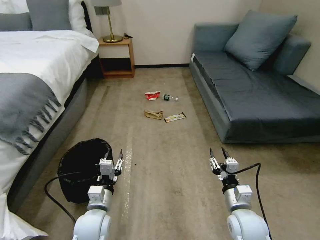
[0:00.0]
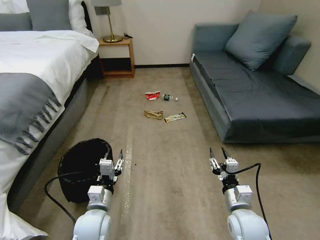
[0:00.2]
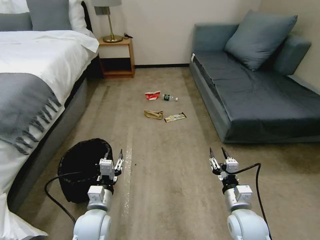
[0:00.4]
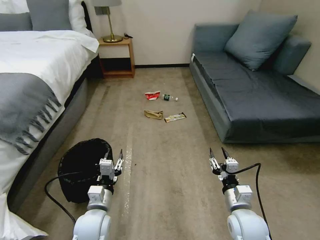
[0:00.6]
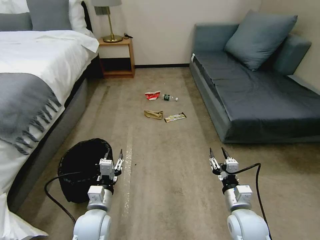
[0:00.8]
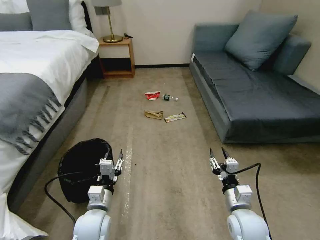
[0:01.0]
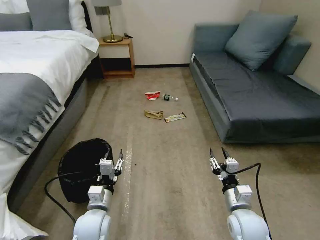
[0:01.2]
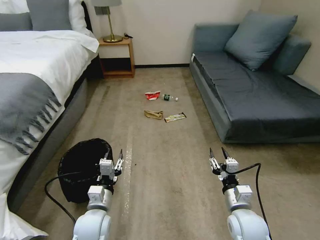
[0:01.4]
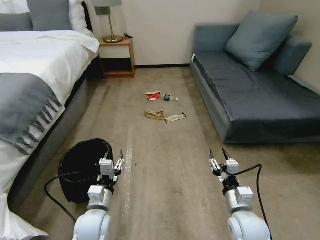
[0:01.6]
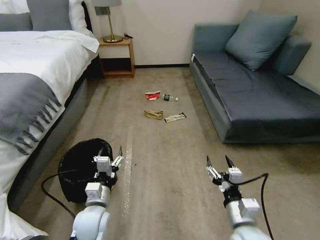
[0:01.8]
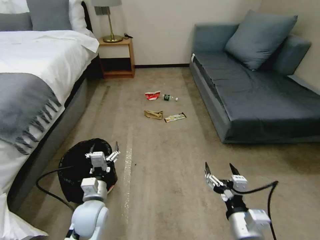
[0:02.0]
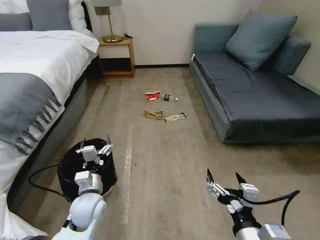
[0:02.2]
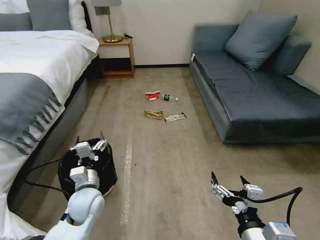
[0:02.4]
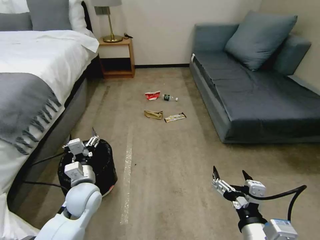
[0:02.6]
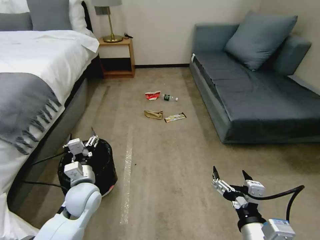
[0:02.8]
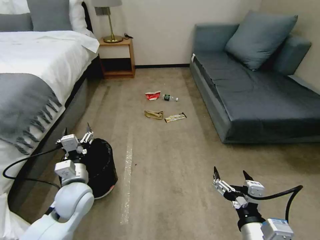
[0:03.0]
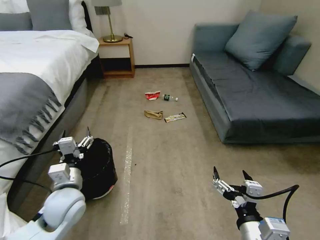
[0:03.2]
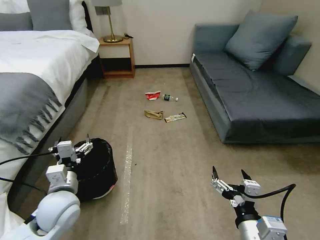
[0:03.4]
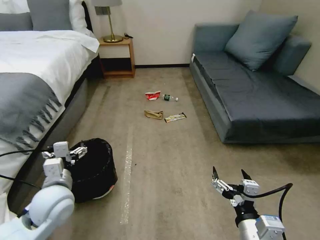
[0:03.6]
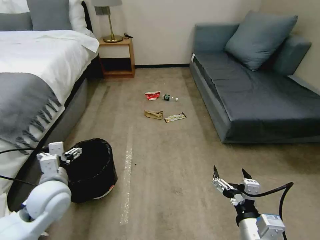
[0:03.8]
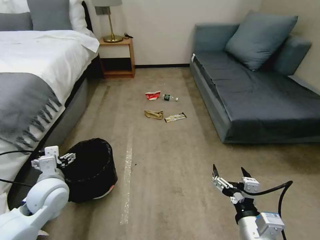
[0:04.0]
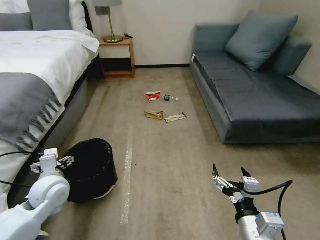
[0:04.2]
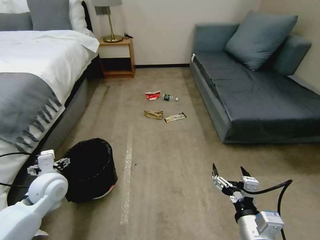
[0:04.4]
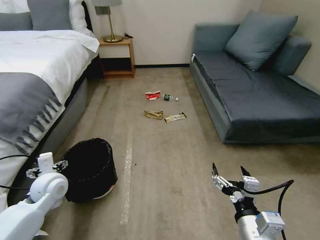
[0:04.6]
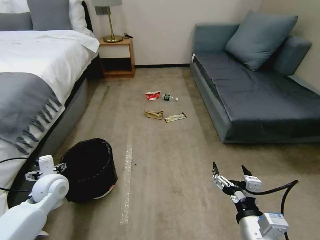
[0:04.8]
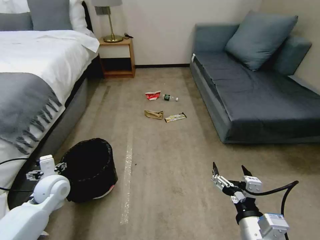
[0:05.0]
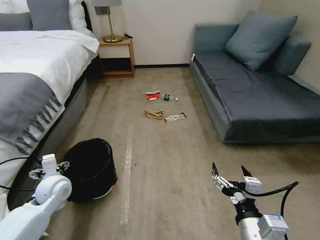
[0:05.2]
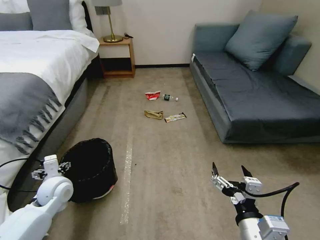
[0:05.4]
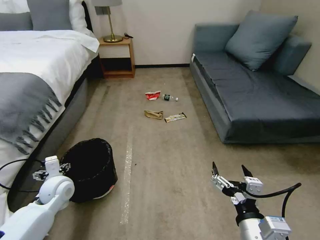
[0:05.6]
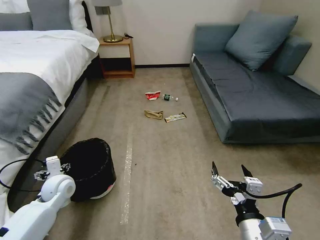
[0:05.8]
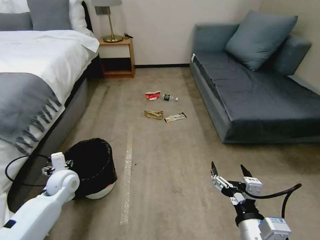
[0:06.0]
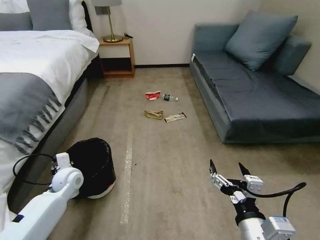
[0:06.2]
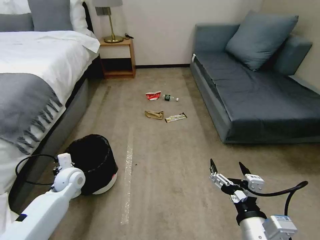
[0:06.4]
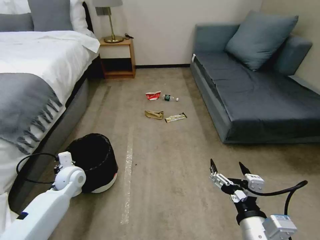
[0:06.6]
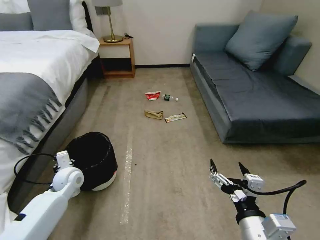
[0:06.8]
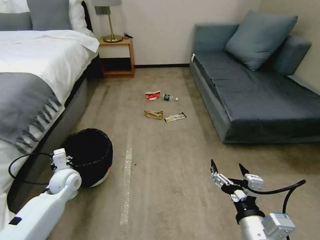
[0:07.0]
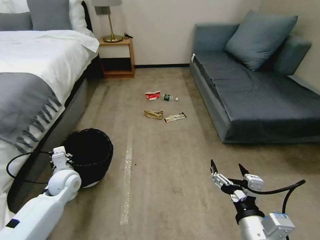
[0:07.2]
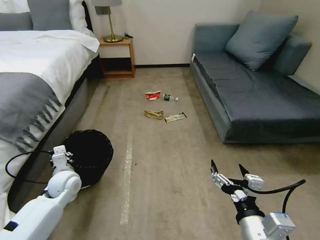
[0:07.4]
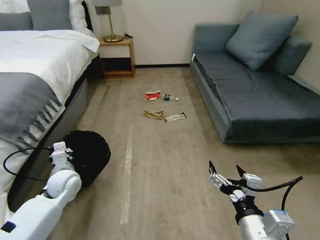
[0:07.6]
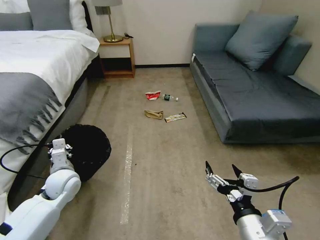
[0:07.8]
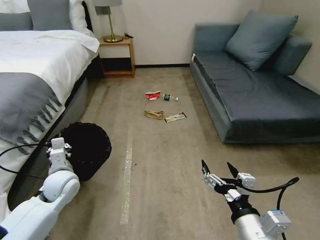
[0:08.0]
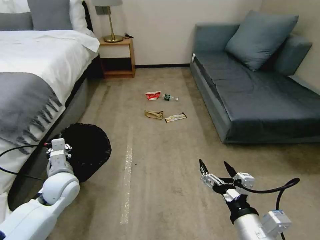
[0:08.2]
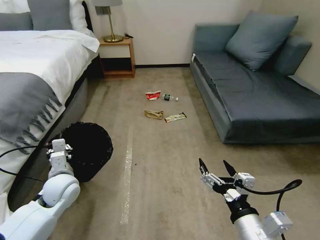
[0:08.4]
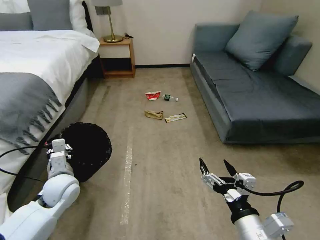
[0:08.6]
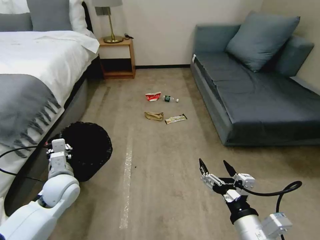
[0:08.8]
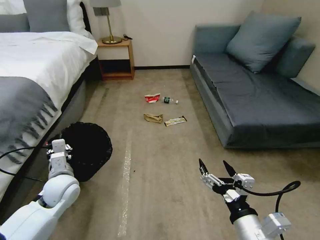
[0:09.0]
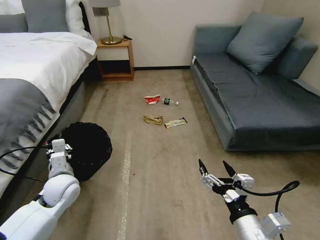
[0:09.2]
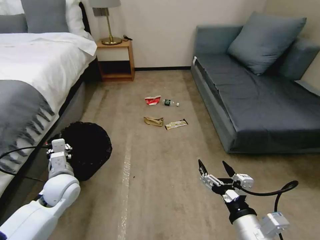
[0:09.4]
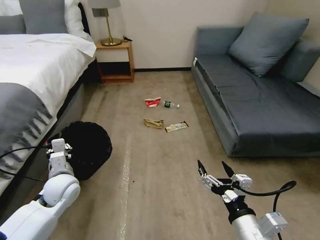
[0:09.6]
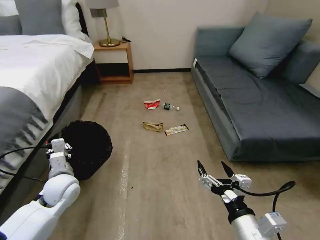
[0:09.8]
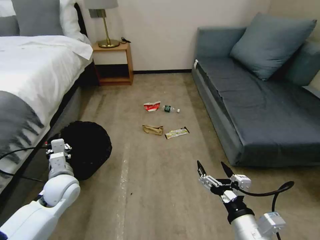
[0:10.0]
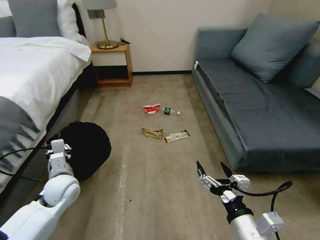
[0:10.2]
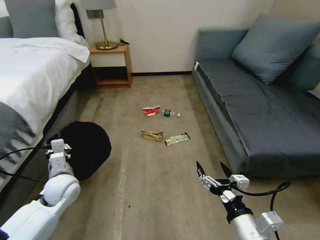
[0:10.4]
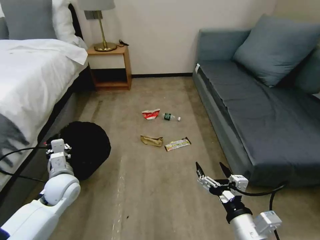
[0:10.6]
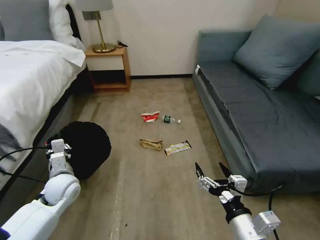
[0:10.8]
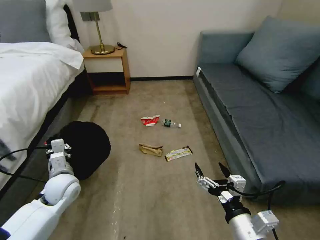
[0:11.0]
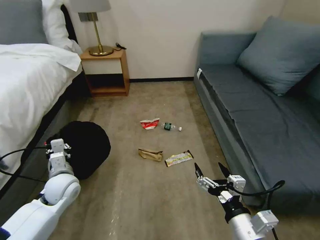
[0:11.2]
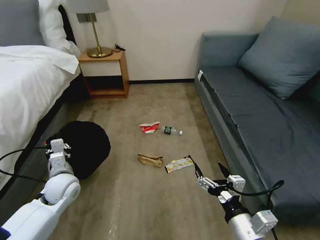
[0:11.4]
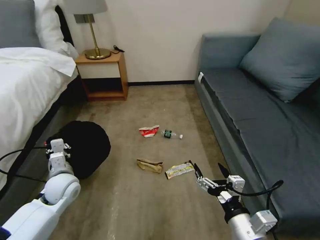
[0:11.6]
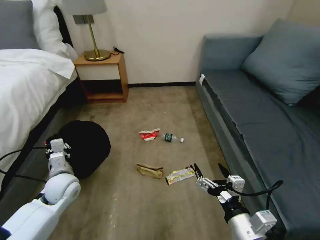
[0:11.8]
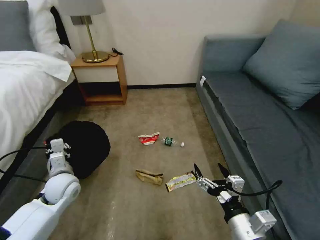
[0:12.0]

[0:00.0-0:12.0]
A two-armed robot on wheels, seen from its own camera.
Task of the whole recording: Pick up the trash bin, then pick up the garbage on the floor and place it into the trash bin.
0:01.6 to 0:03.0: The left gripper moves upward, forward and to the left, some 10 cm, while the right gripper travels backward and upward by roughly 15 cm, and opens.
0:03.0 to 0:04.4: The left gripper goes some 10 cm to the left.
0:04.4 to 0:06.0: The left gripper moves downward, about 5 cm.
0:06.0 to 0:07.6: The left gripper closes.
0:07.6 to 0:09.0: The grippers stay close to where they were, moving slightly.

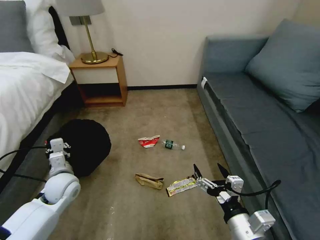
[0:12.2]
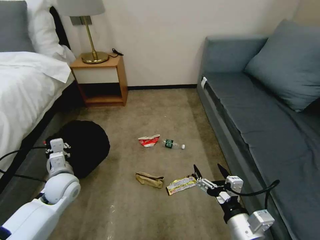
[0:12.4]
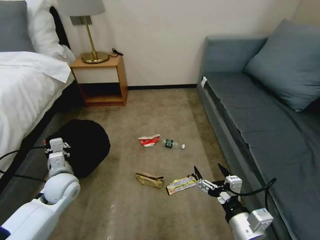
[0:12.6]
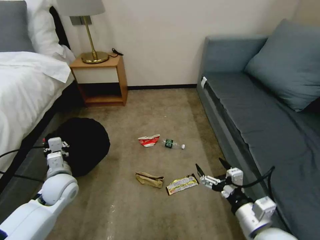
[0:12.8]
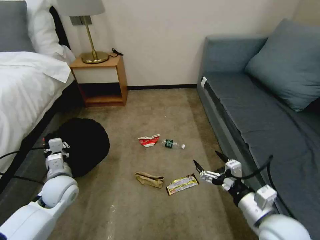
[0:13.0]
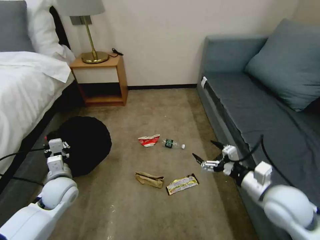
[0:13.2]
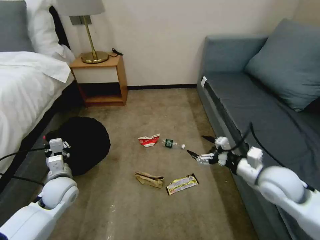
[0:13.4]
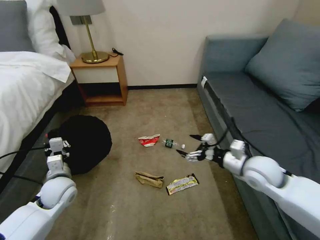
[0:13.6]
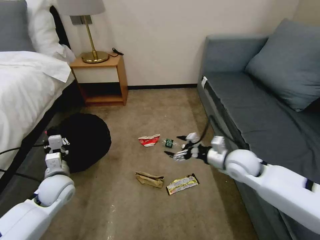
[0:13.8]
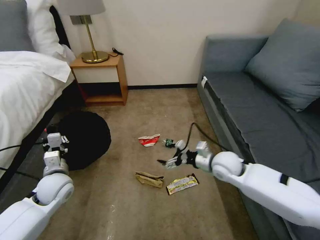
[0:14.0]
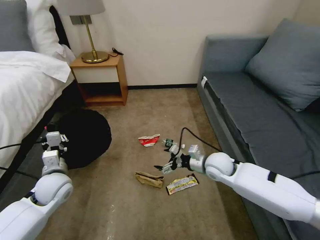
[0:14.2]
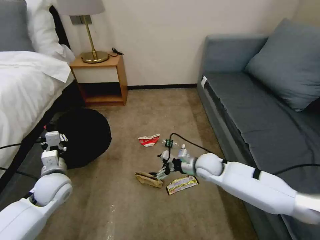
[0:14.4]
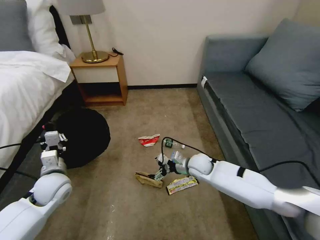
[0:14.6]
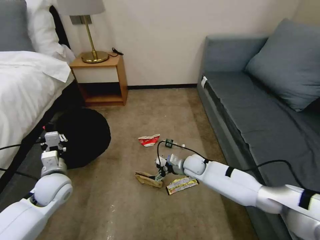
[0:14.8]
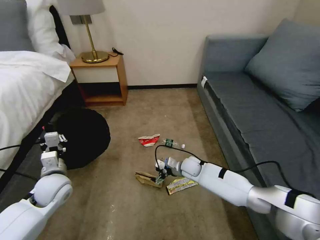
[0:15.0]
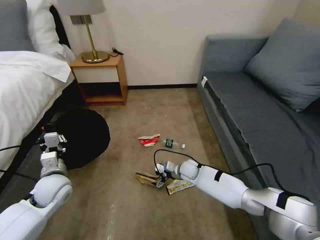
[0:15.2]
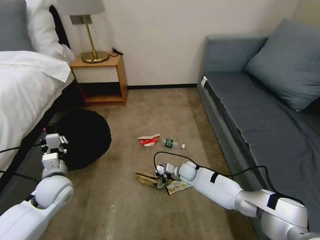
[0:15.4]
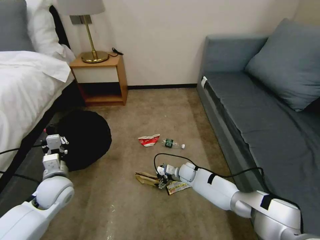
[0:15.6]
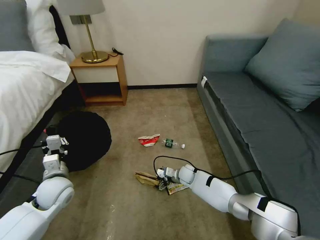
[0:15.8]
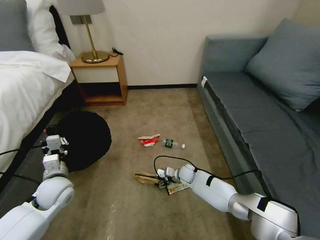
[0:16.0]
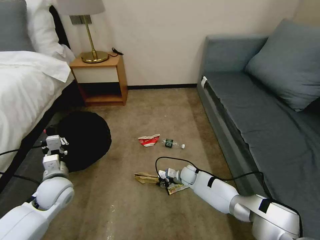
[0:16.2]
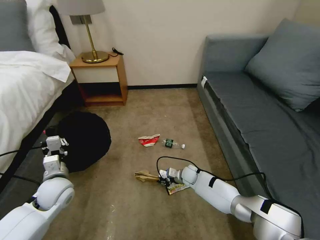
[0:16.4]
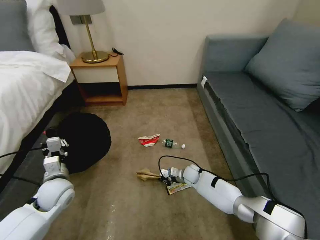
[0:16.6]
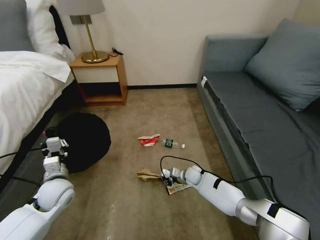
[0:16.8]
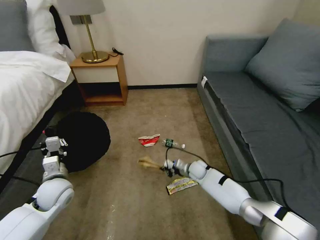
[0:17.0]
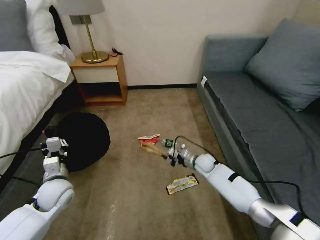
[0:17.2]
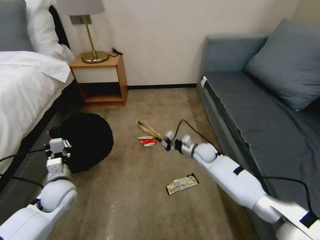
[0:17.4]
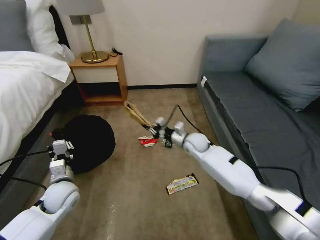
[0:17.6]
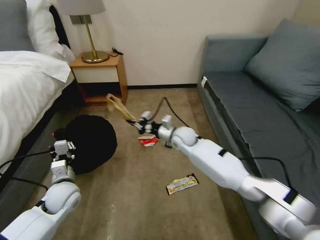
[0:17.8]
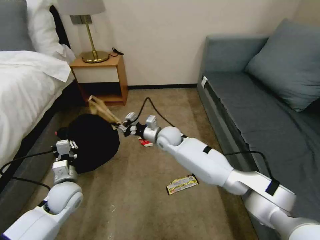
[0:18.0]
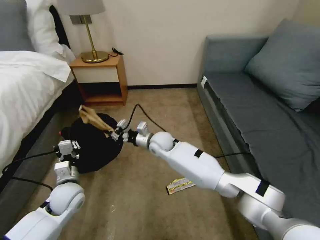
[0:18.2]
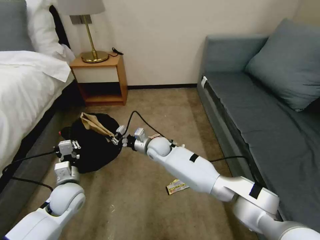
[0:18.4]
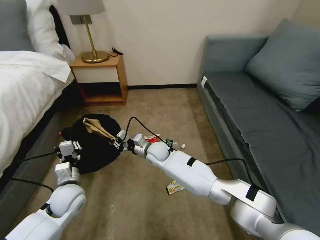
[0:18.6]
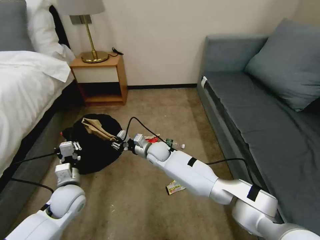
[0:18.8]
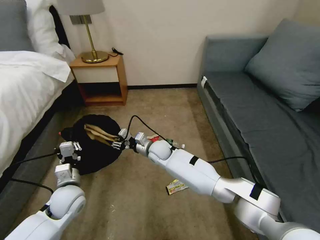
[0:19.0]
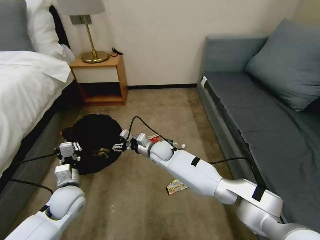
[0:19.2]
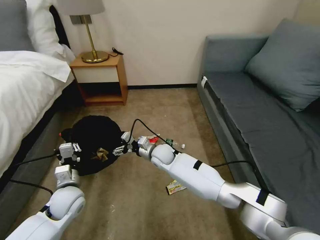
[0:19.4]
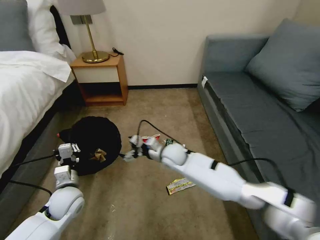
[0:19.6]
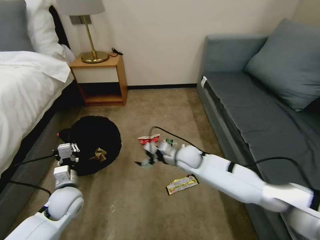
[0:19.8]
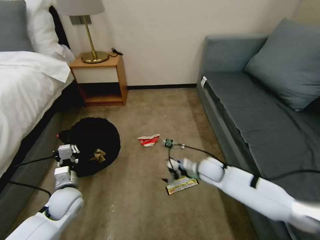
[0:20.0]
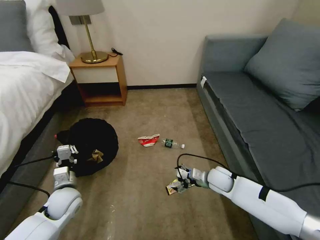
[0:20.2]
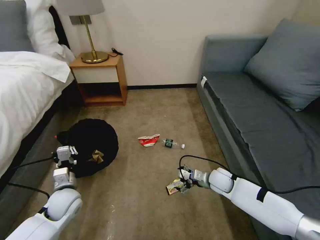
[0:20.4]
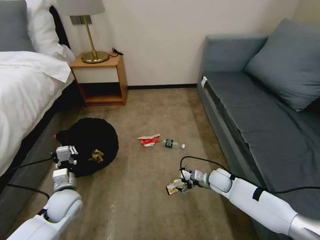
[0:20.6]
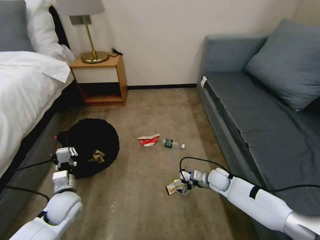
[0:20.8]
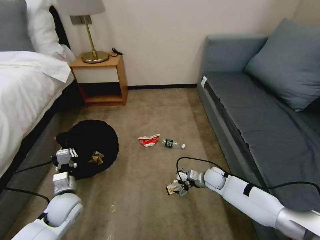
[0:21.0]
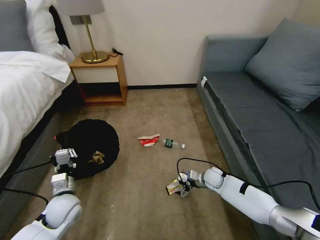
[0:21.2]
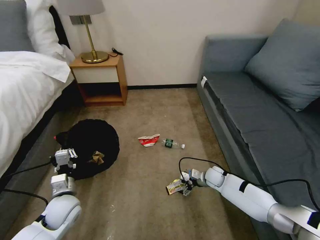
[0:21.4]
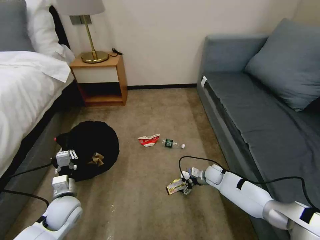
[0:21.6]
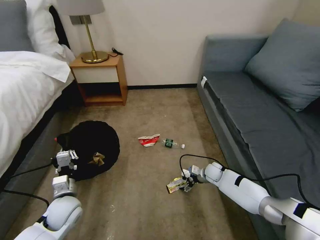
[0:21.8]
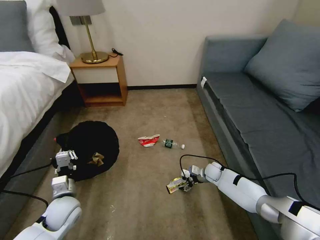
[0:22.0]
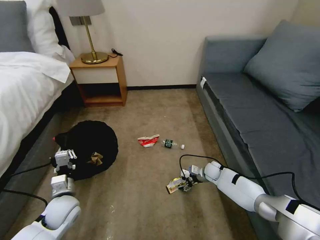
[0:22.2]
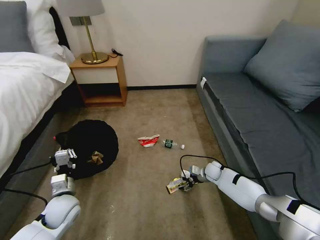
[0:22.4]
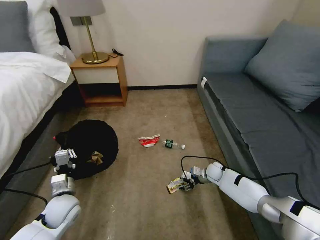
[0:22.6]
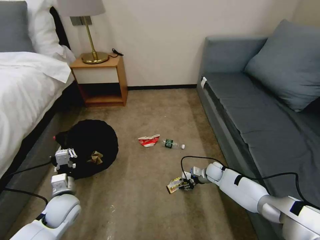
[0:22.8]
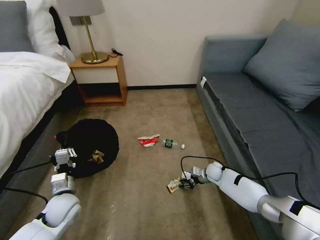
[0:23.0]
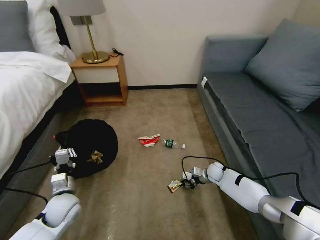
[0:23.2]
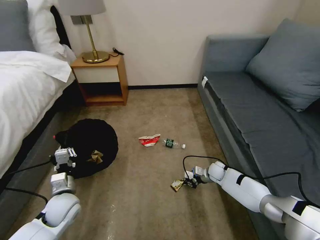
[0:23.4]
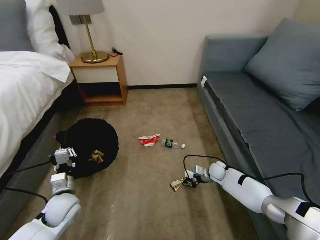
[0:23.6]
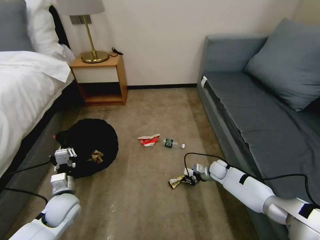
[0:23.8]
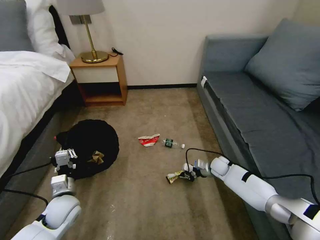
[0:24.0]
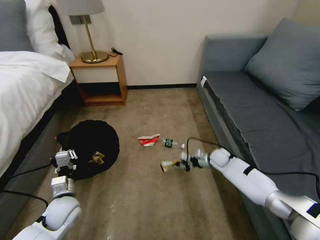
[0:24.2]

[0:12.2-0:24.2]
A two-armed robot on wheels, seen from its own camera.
Task of the whole recording: Pick up the trash bin, then pick up the garbage on the floor and place it into the trash bin.
0:12.2 to 0:13.8: The right gripper moves forward, roughly 25 cm.
0:13.8 to 0:15.2: The right gripper travels downward and to the left by about 25 cm.
0:15.2 to 0:16.6: The right gripper shifts by some 5 cm, and closes its fingers.
0:16.6 to 0:18.2: The right gripper moves upward and to the left, roughly 25 cm.
0:18.2 to 0:19.8: The right gripper shifts approximately 15 cm to the right and backward, and opens up.
0:19.8 to 0:21.2: The right gripper shifts about 20 cm downward and to the right.
0:21.2 to 0:22.6: The right gripper changes place by some 5 cm, and closes its fingers.
0:22.6 to 0:24.2: The right gripper is displaced upward by some 5 cm, and closes up.
